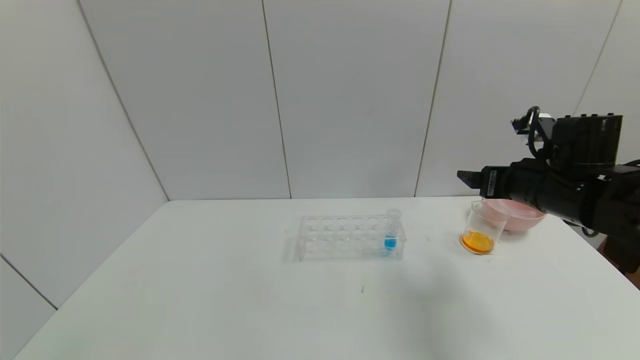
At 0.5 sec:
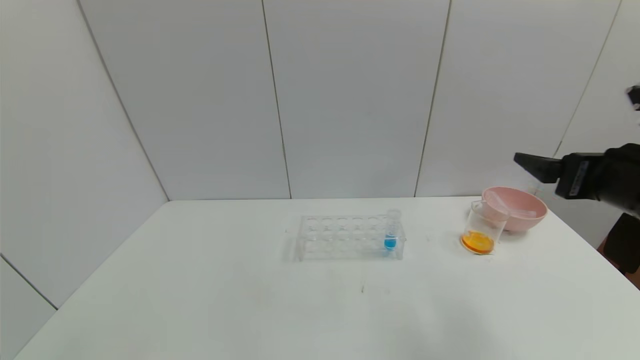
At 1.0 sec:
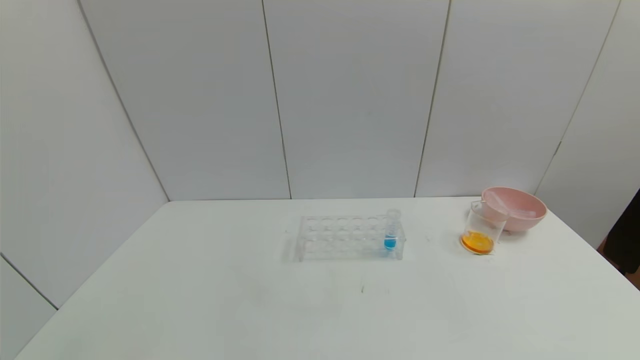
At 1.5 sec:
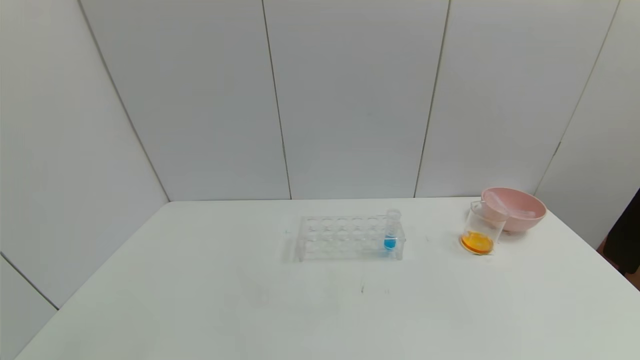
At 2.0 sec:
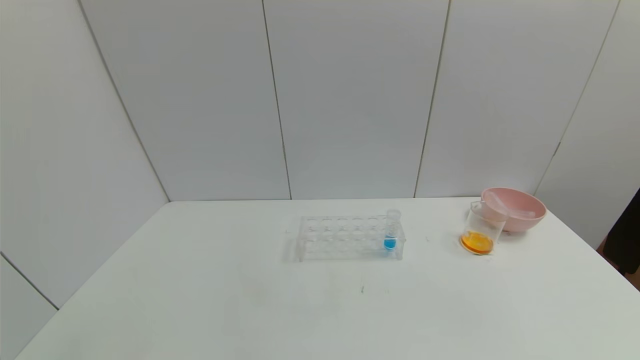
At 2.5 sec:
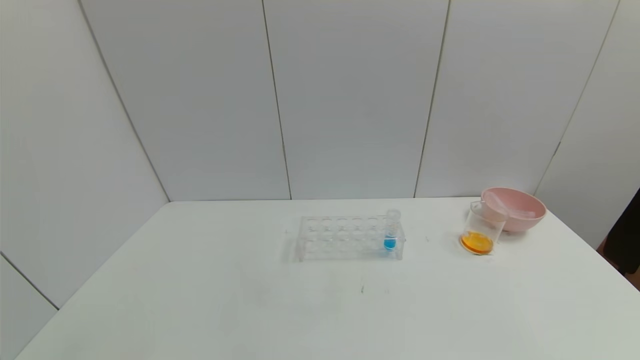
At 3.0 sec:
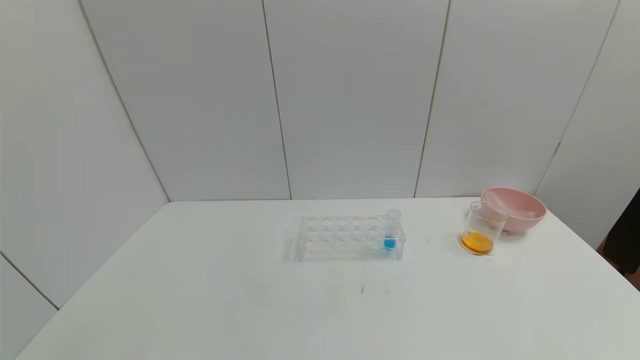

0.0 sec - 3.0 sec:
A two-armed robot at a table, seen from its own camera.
Task of the whole recording: pick up the test tube with yellow pigment and the test tube with red pigment by grippers and pour them into the beaker.
0.0 sec - 1.5 sec: The right gripper is displaced backward by about 35 cm.
